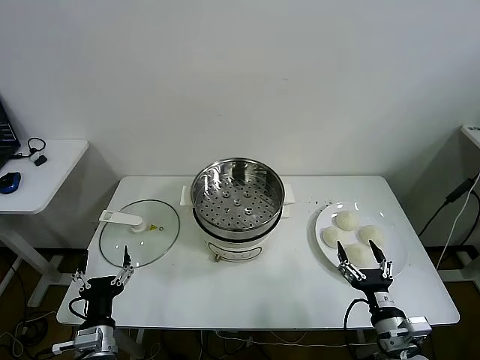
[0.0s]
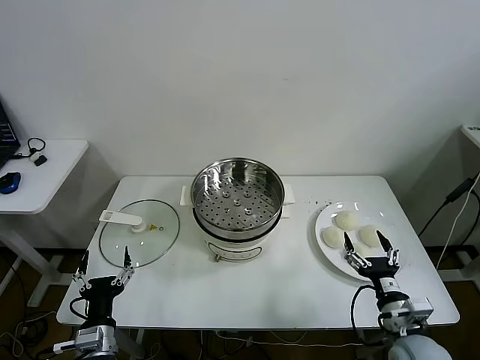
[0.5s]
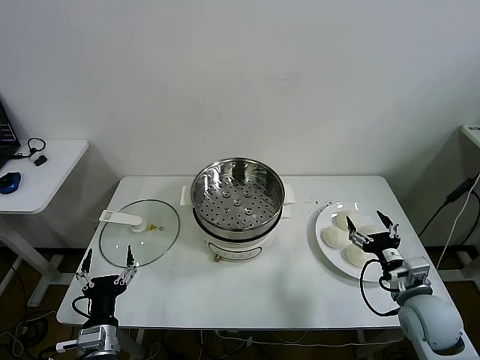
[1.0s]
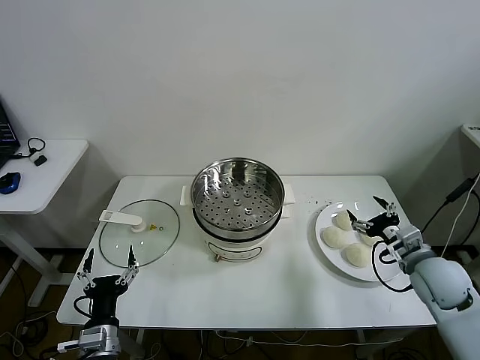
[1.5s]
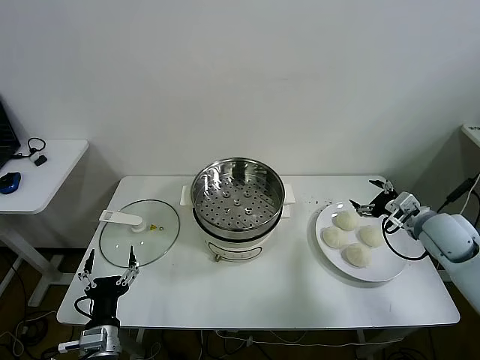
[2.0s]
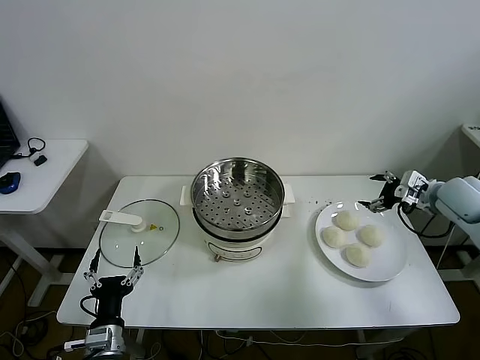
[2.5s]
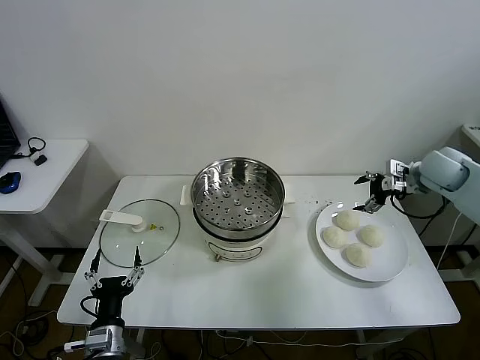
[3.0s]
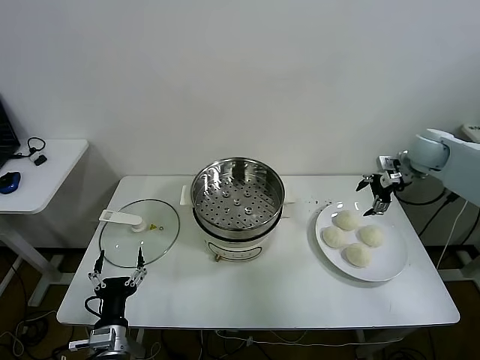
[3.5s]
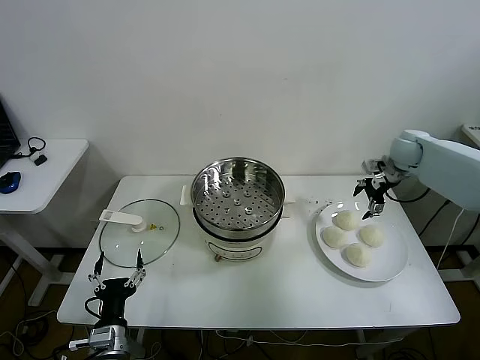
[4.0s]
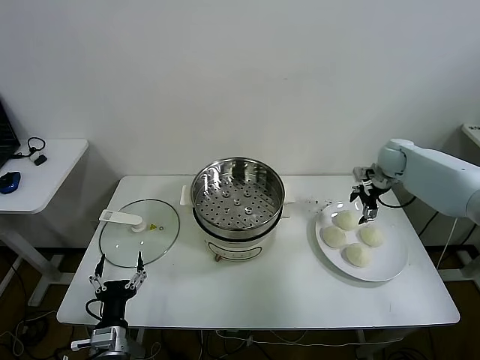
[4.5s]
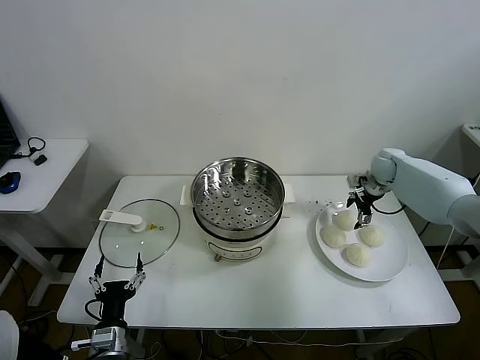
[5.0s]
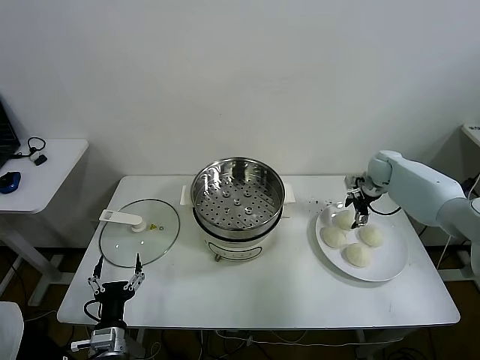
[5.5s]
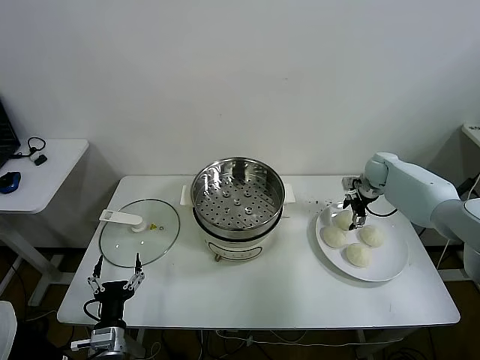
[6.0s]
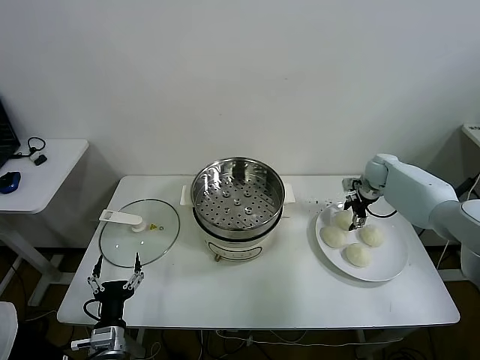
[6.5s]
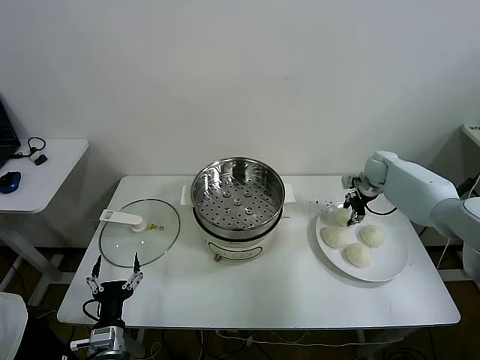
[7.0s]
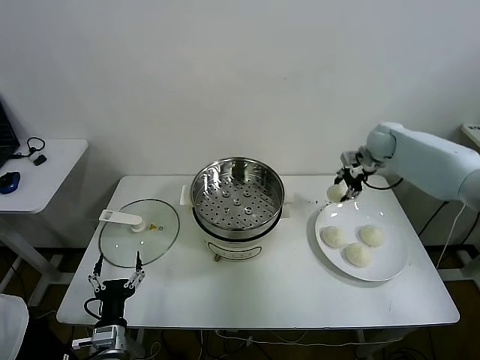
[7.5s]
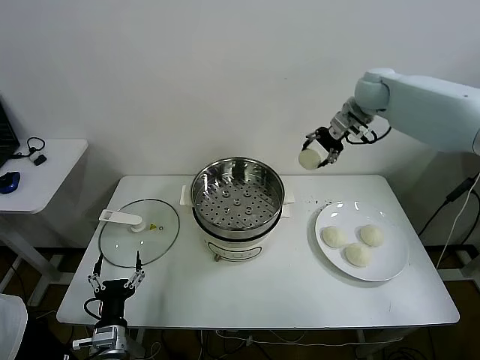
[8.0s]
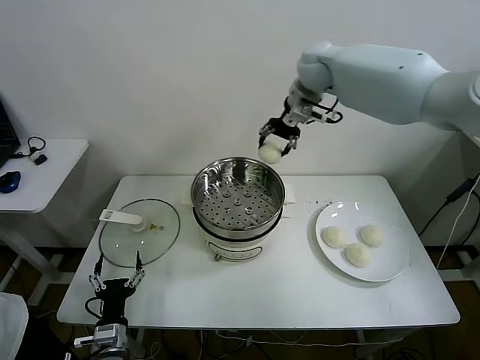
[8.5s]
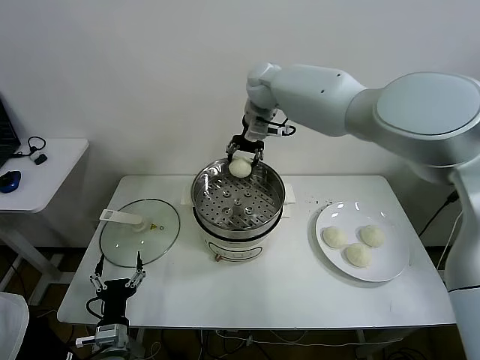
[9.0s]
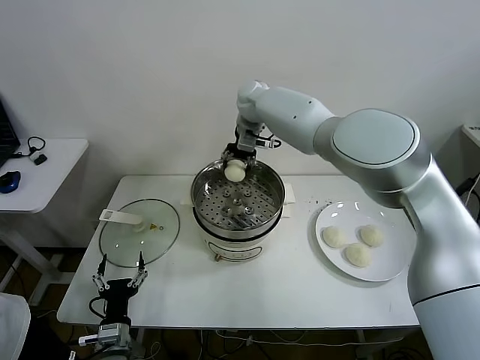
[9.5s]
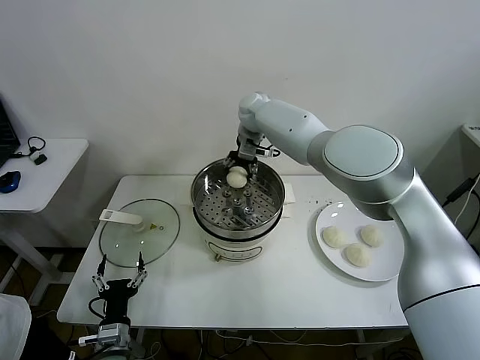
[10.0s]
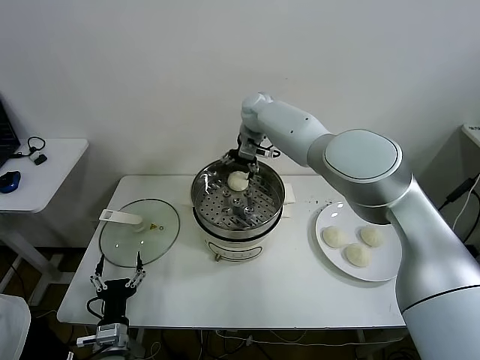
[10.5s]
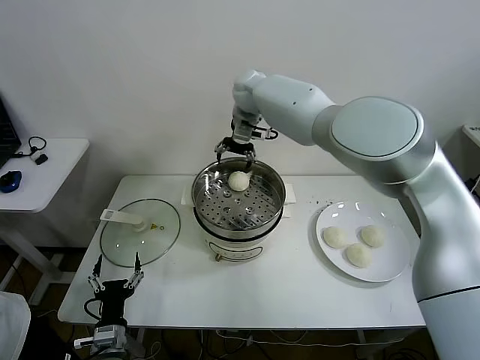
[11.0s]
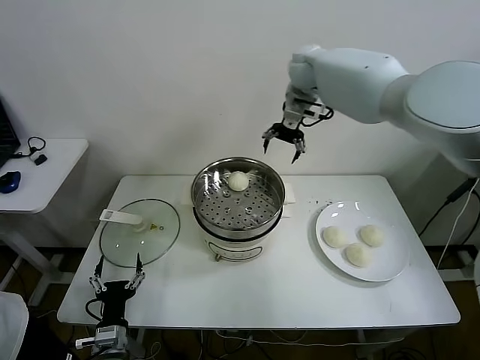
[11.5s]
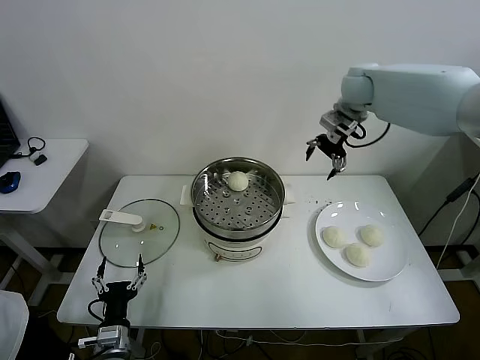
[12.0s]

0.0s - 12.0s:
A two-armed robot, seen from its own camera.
Task of the whole recording: take steamed baozi put them in steamer.
Step, 0.0s - 6.5s: Grasp the baozi in the plate with right gripper.
Step, 7.0s - 10.0s: Place the baozi on the steamer with right gripper.
2.0s - 4.0s: The right gripper is displaced forward by some 20 cm.
4.0s - 6.0s: The right gripper goes some 10 cm downward.
6.0s - 8.0s: The right gripper heads upward and to the left, covering about 30 cm, and closes up.
8.0s - 10.0s: The right gripper heads to the left, covering approximately 25 cm.
10.0s - 12.0s: The right gripper heads to the right, covering roughly 25 cm, and opens its fingers.

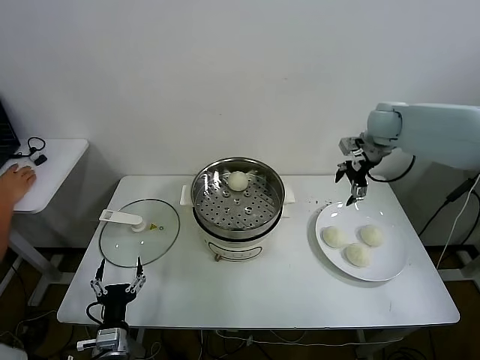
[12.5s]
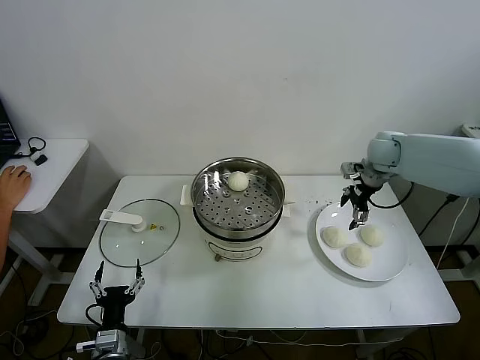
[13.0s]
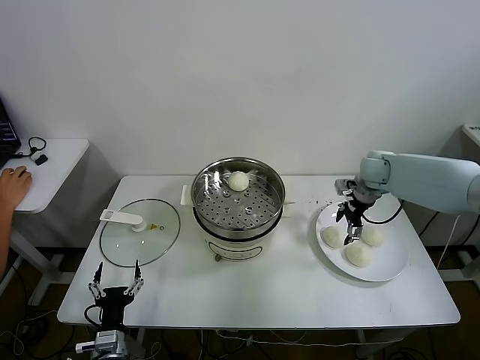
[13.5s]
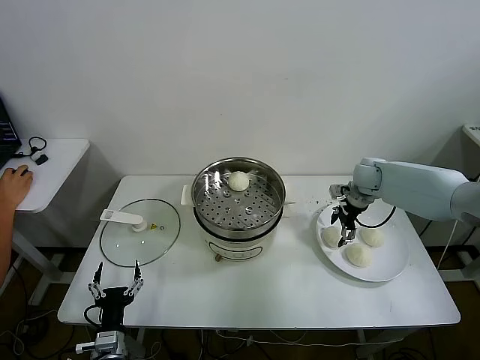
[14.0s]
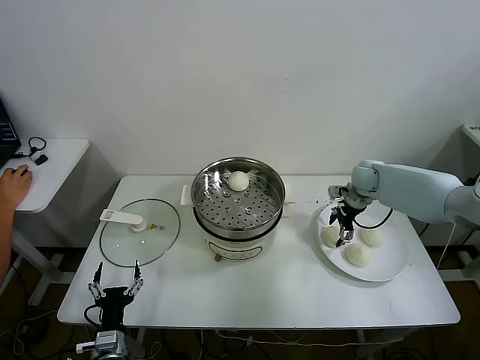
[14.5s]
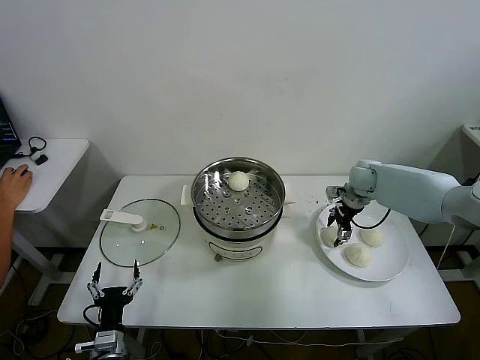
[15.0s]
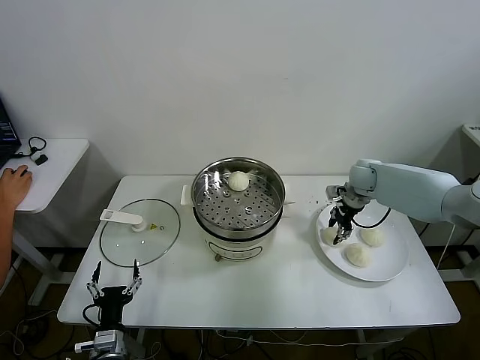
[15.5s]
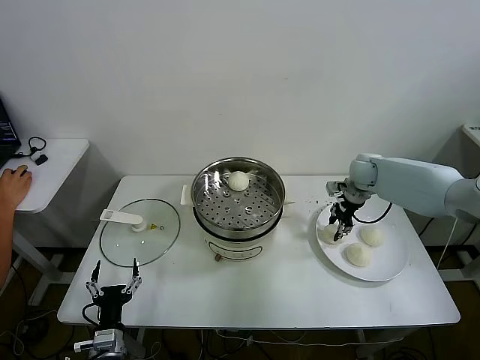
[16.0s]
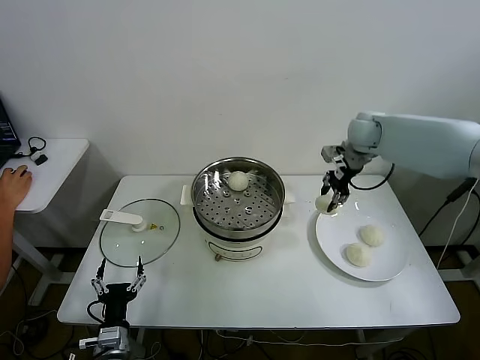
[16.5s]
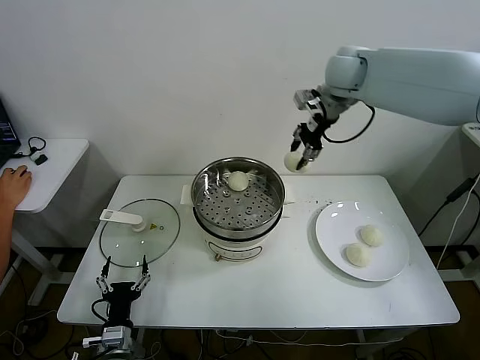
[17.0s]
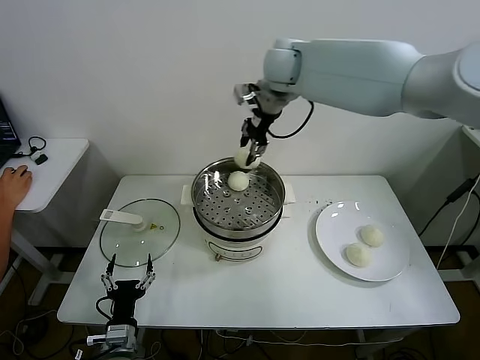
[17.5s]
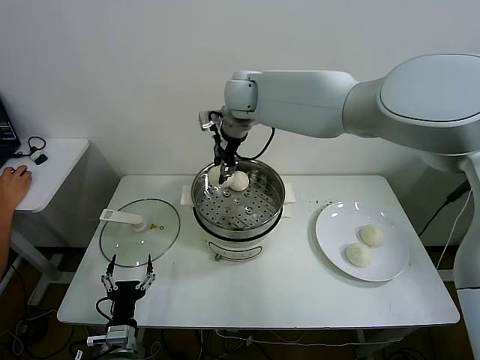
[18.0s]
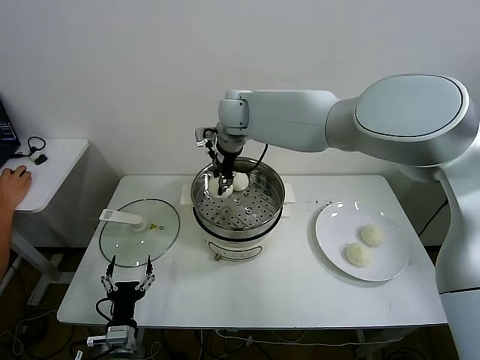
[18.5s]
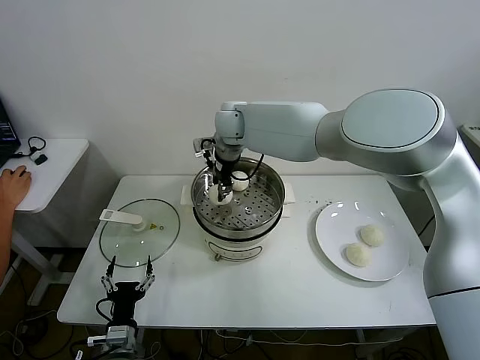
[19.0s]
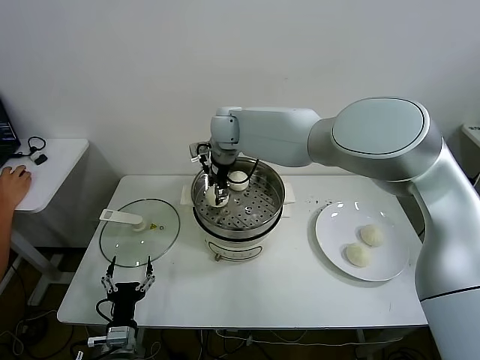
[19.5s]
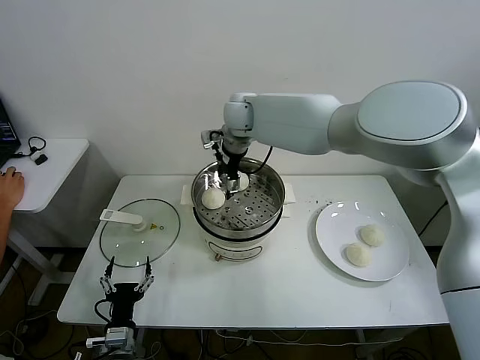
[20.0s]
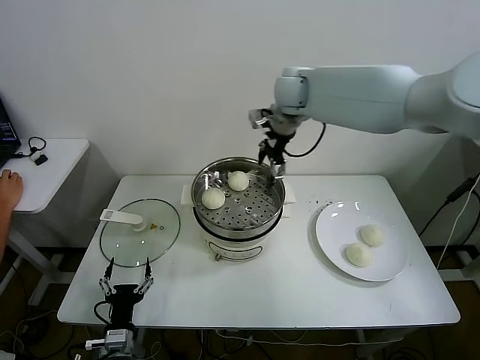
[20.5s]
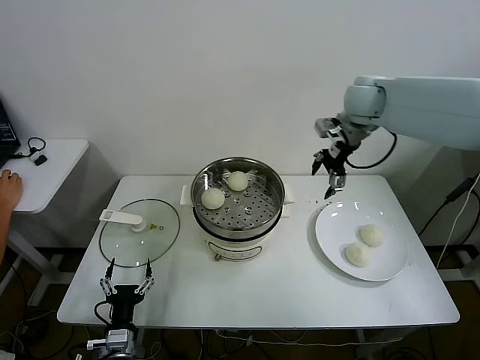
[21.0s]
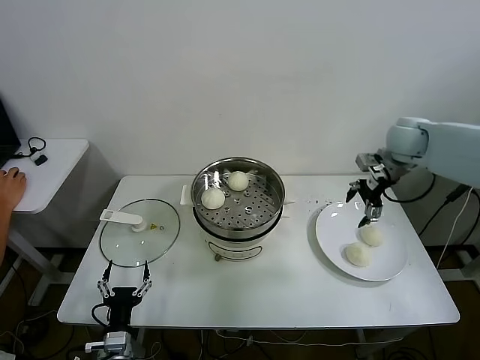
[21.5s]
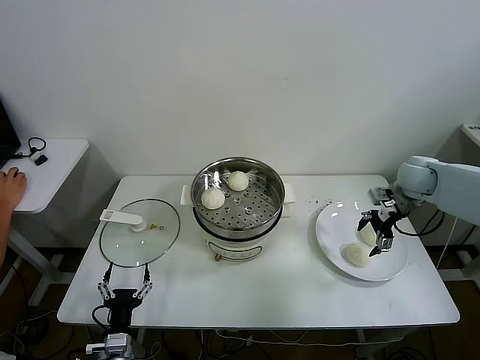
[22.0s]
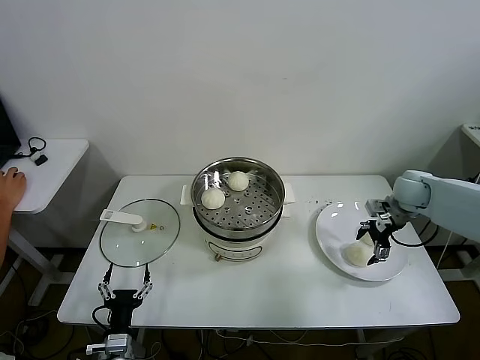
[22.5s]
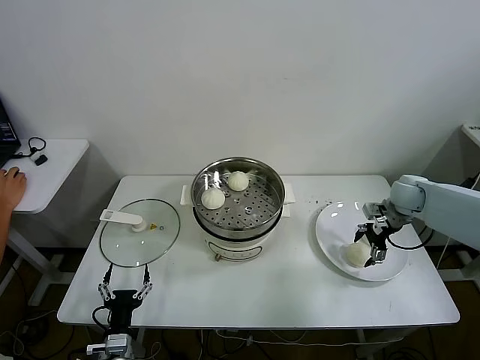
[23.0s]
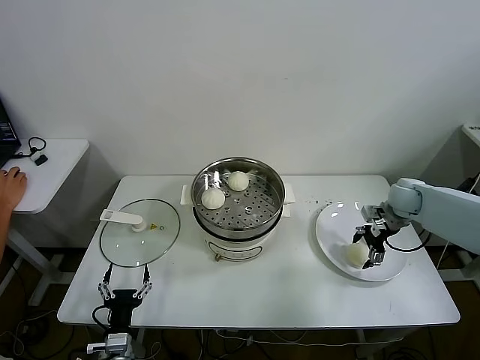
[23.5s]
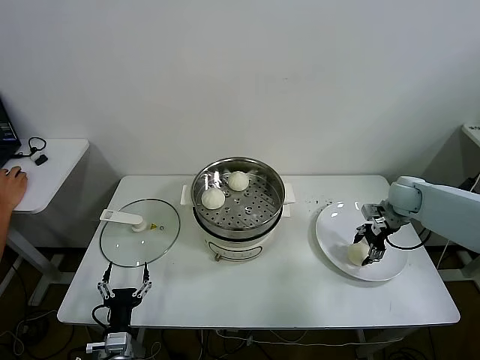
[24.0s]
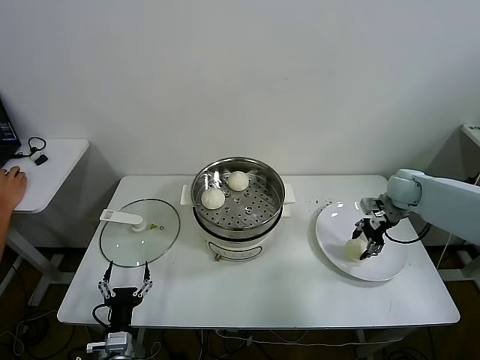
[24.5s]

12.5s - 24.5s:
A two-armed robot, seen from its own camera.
Task of the whole recording: take steamed baozi put them in steamer.
Step, 12.5s - 15.0s: Grasp the baozi in the plate with right gripper.
Step, 15.5s - 19.5s: Place the baozi on the steamer with right gripper.
Step, 20.0s - 24.0s: Grasp the baozi in the plate with right gripper.
12.5s - 14.5s: The right gripper moves downward, about 15 cm.
14.5s - 16.5s: The right gripper is displaced upward by some 15 cm, and closes up.
16.5s - 18.5s: The right gripper heads to the left, covering roughly 30 cm.
18.5s - 20.5s: The right gripper goes roughly 15 cm to the right, and opens its fingers.
20.5s - 22.5s: The right gripper goes some 35 cm to the right and downward.
22.5s - 24.5s: The right gripper closes its fingers.

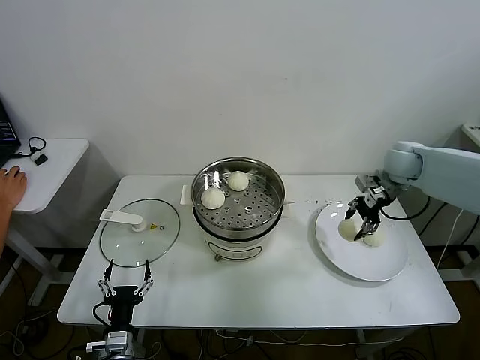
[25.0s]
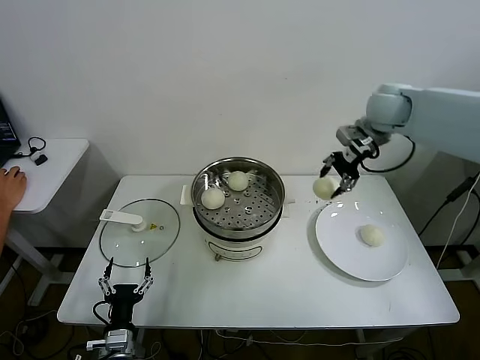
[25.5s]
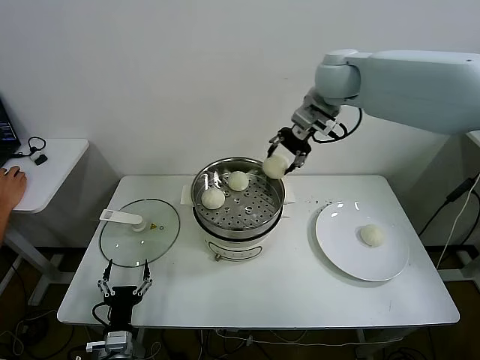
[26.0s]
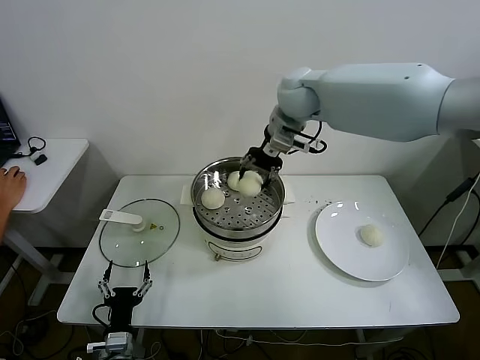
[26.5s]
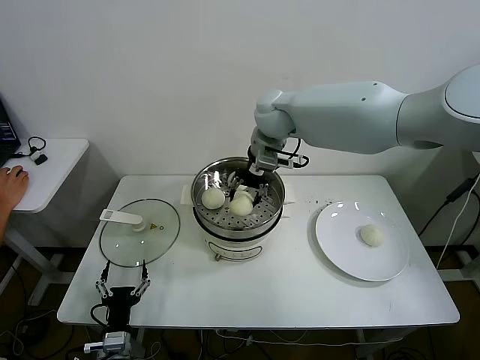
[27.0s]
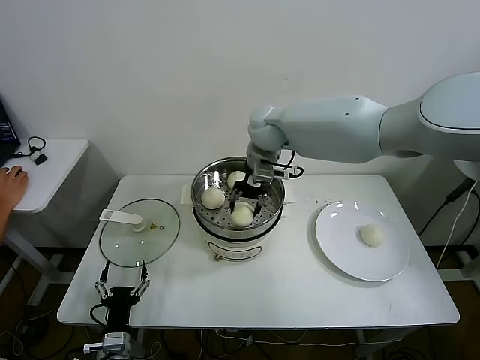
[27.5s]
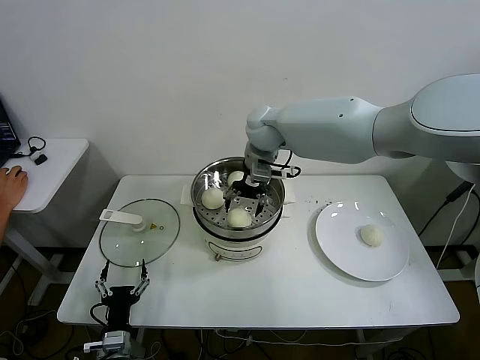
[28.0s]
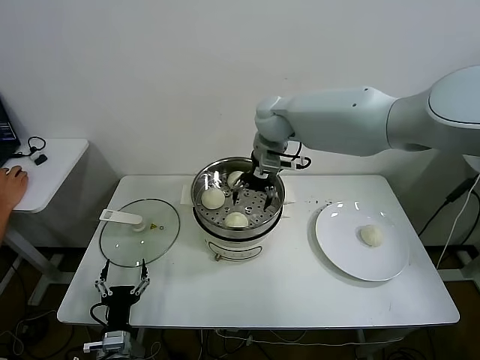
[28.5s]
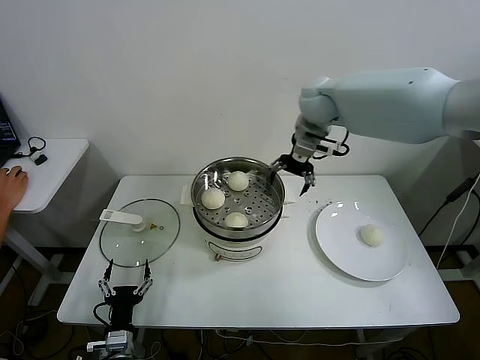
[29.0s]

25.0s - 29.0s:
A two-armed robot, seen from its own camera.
Task of the whole recording: take steamed baozi put them in steamer.
Step, 25.0s - 28.0s: Place the baozi on the steamer with right gripper.
25.0s - 27.0s: The right gripper heads to the left, covering roughly 30 cm.
27.0s - 29.0s: The right gripper is displaced to the right by roughly 10 cm, and opens up.
